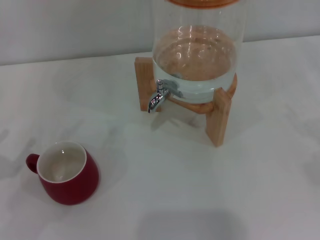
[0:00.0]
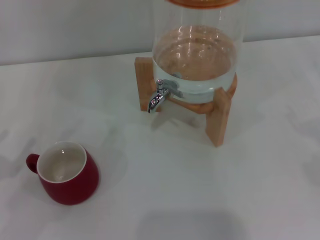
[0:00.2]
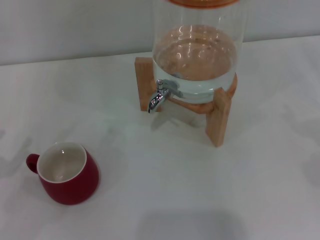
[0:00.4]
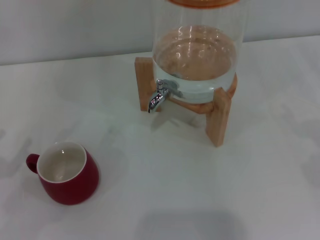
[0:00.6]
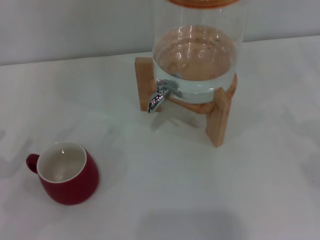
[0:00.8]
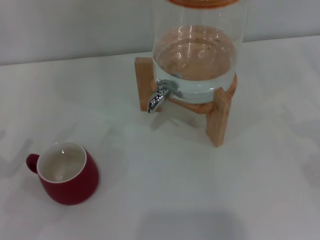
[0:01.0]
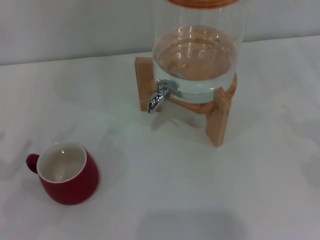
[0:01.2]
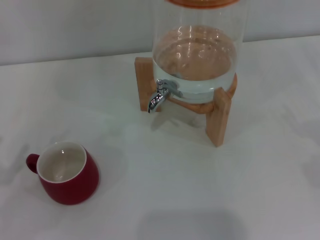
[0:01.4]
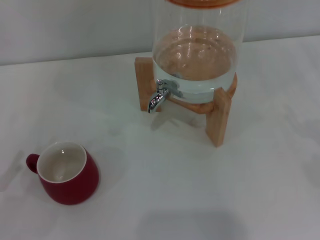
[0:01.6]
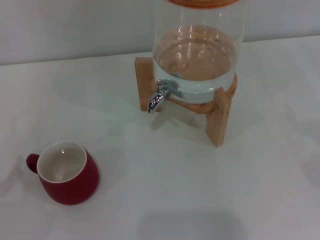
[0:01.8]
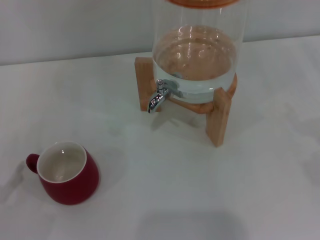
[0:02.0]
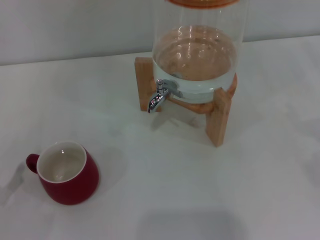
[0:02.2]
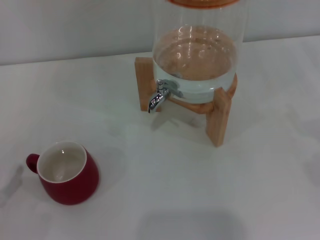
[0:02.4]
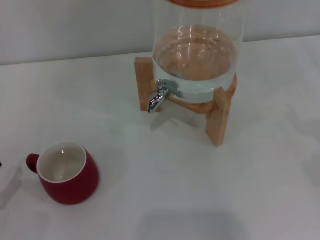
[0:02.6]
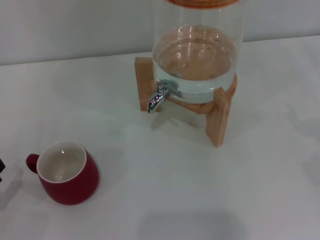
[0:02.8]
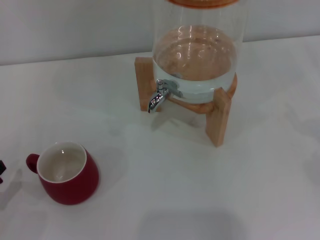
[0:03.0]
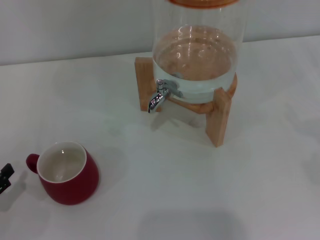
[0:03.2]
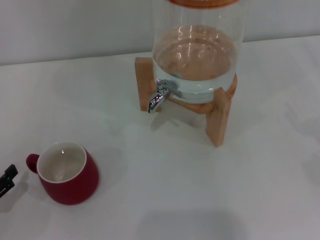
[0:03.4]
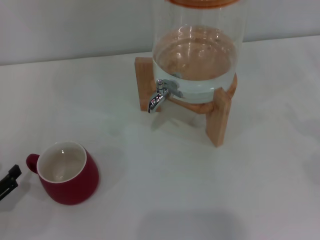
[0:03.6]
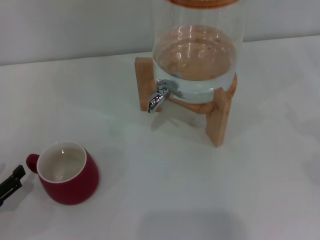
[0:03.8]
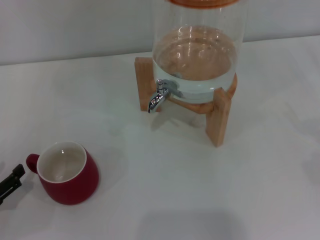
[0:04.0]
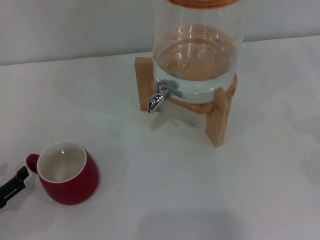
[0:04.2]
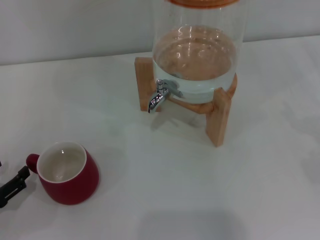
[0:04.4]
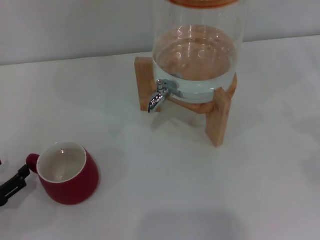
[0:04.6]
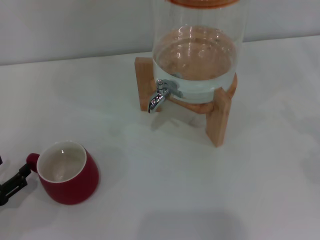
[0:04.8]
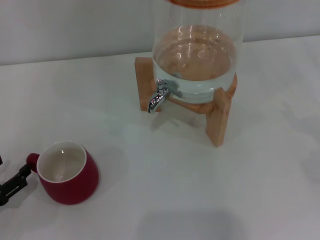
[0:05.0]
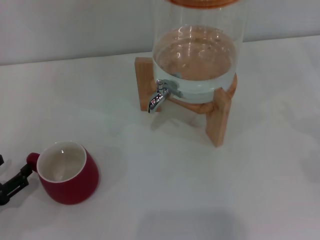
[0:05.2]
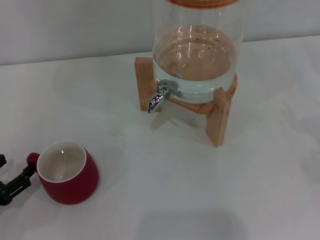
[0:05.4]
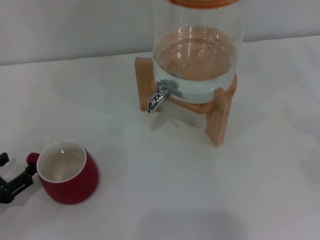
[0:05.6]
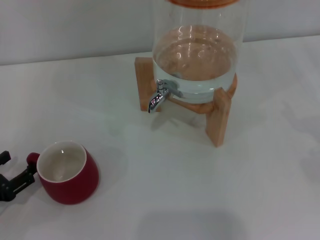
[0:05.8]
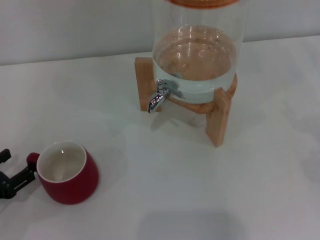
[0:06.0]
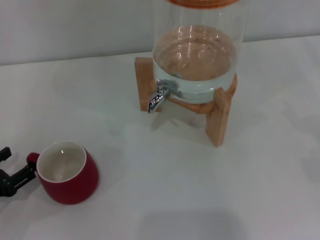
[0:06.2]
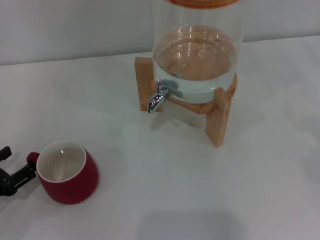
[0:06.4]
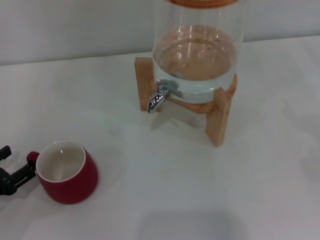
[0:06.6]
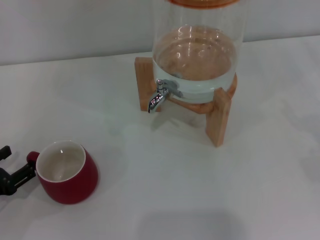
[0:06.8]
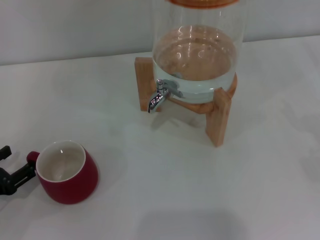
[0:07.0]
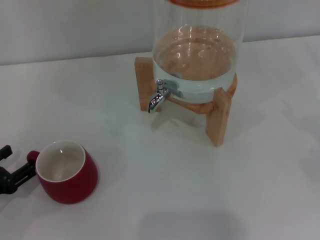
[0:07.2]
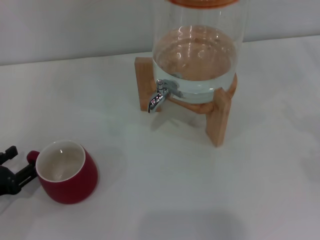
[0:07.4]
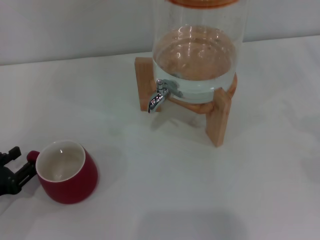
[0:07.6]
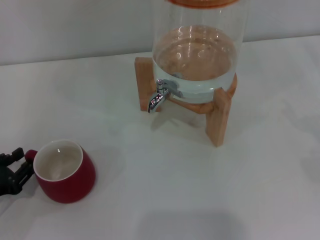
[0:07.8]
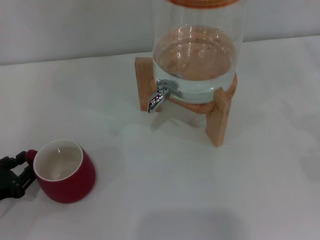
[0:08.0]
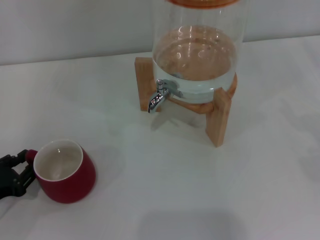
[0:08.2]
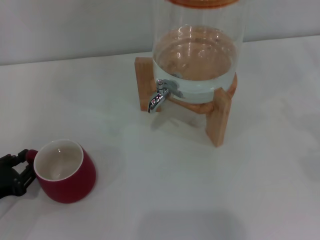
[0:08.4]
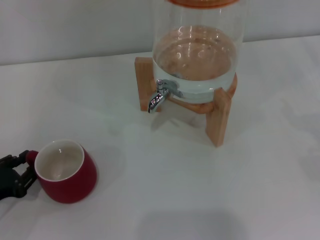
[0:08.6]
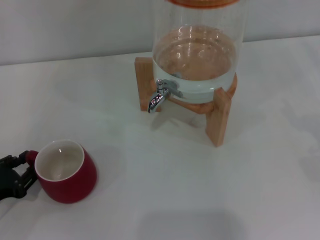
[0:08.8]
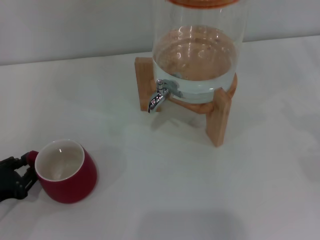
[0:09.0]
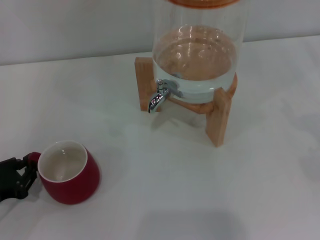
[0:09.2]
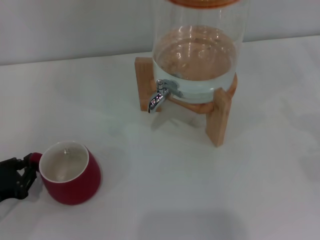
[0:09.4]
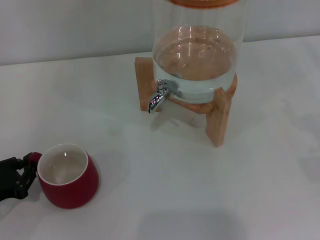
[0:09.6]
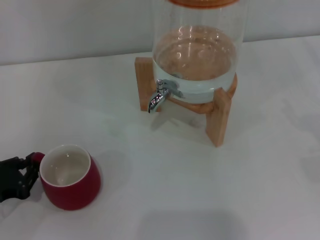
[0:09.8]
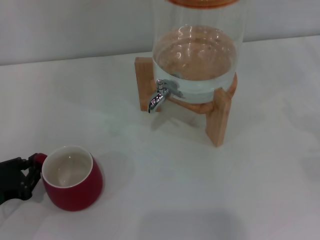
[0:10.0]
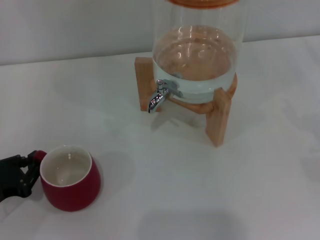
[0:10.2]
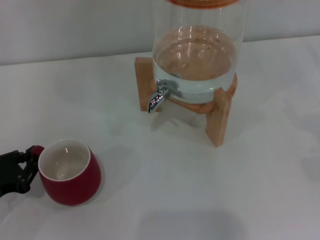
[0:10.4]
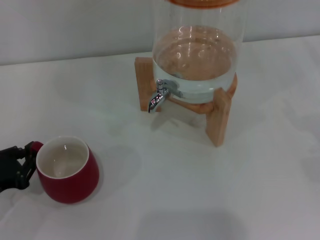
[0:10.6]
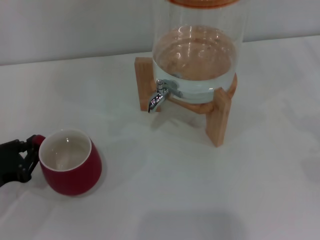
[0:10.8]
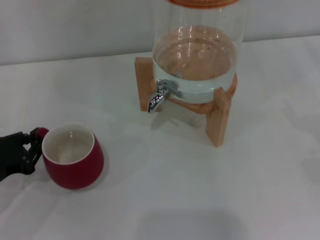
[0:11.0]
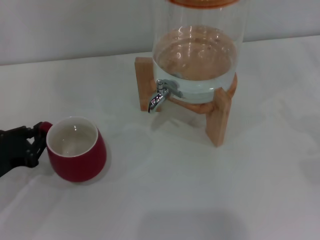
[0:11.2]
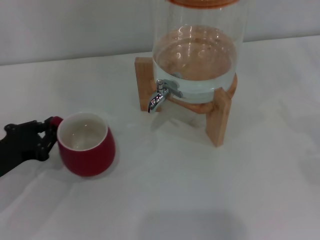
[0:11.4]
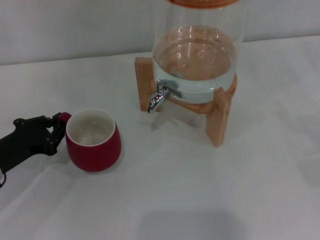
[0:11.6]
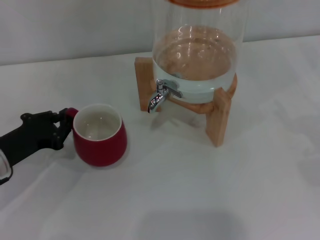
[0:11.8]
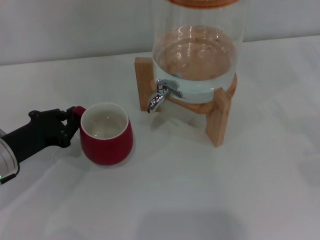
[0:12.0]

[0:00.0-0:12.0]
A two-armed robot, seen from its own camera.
Task of the whole recording: the left gripper pick up the red cup and place it horizontally under the faucet, the right gripper turn on the faucet to fill the cup, and then turn off the faucet.
0:03.0 to 0:04.4: The grippers stay close to where they were, moving slightly.
0:06.0 to 0:07.6: Neither gripper changes place.
0:07.6 to 0:09.0: The left gripper closes.
0:09.0 to 0:10.4: Both grippers stay put.
0:10.4 to 0:12.0: The left gripper travels forward and to the right by about 10 cm.

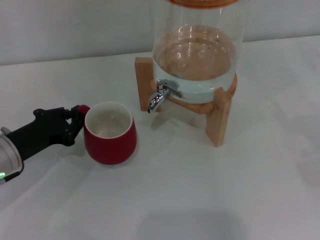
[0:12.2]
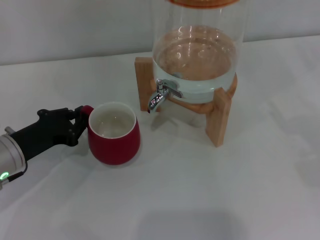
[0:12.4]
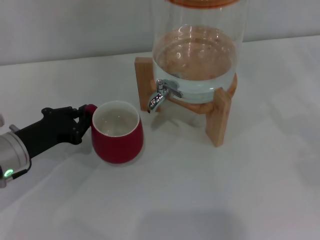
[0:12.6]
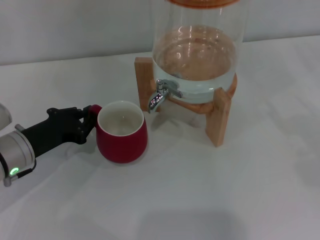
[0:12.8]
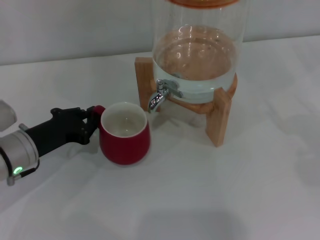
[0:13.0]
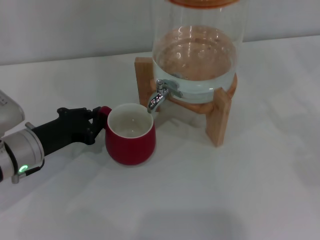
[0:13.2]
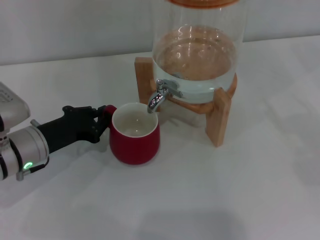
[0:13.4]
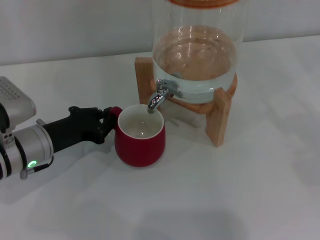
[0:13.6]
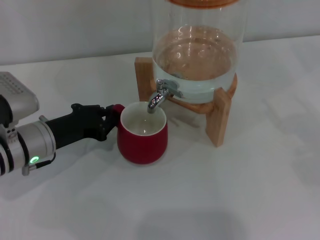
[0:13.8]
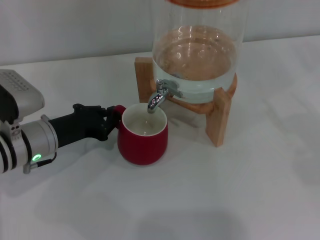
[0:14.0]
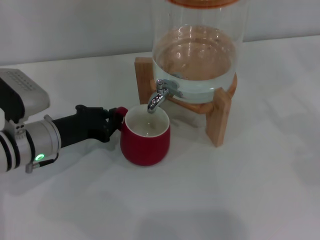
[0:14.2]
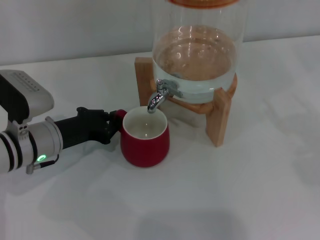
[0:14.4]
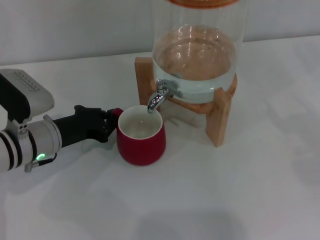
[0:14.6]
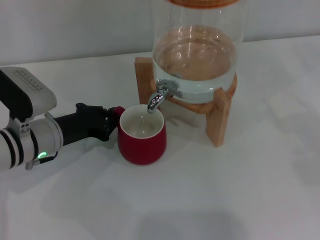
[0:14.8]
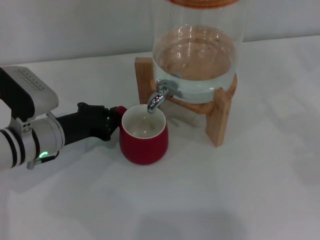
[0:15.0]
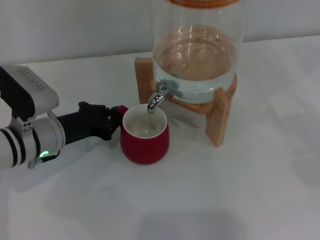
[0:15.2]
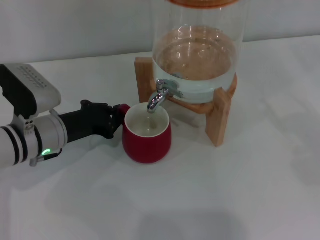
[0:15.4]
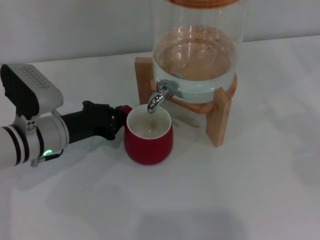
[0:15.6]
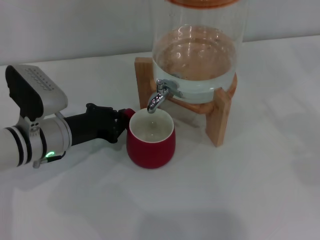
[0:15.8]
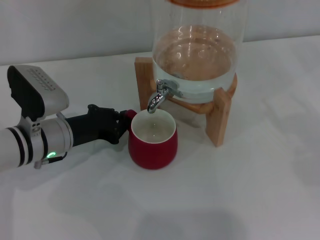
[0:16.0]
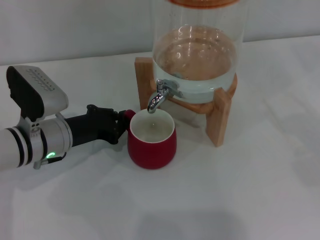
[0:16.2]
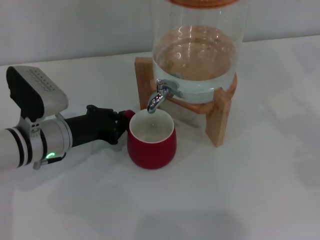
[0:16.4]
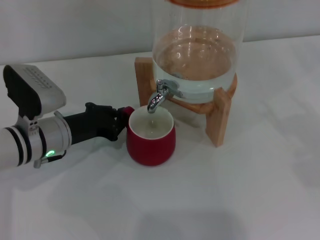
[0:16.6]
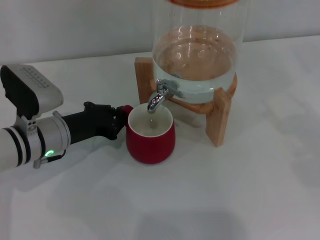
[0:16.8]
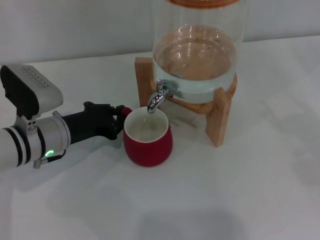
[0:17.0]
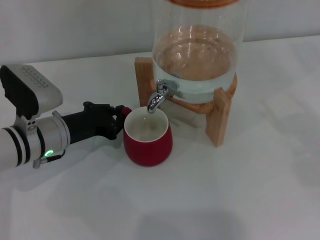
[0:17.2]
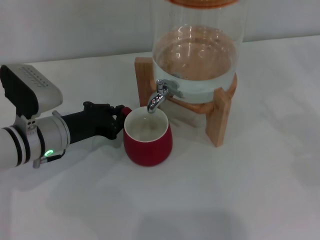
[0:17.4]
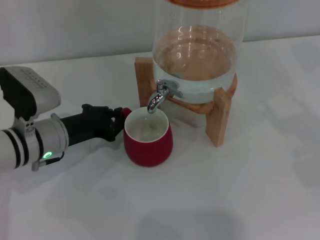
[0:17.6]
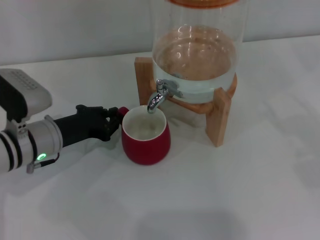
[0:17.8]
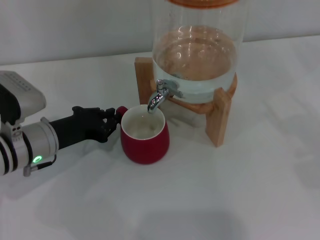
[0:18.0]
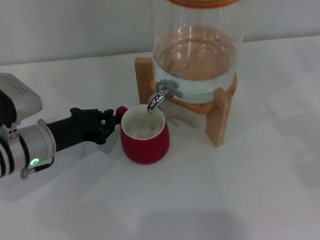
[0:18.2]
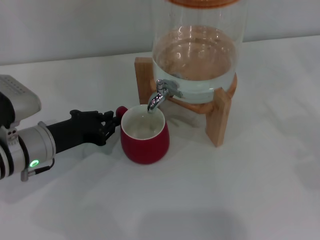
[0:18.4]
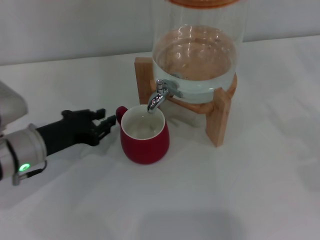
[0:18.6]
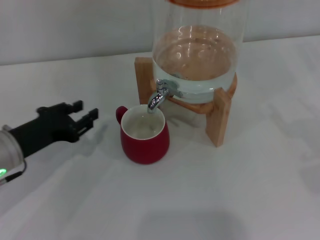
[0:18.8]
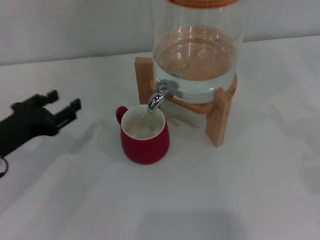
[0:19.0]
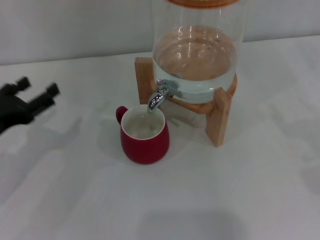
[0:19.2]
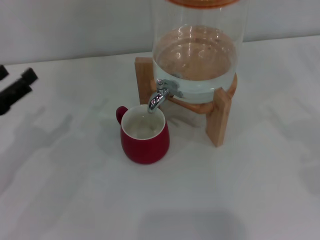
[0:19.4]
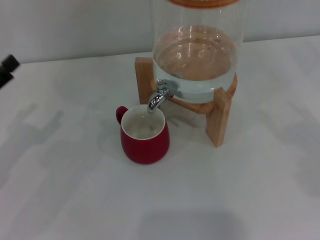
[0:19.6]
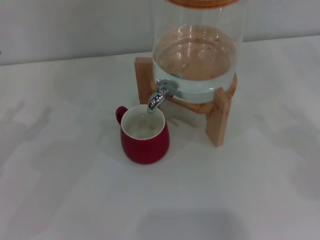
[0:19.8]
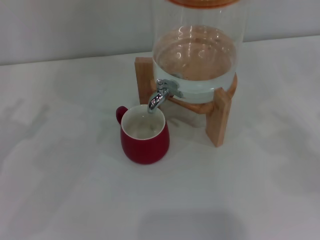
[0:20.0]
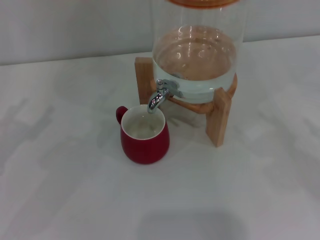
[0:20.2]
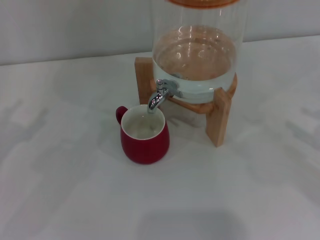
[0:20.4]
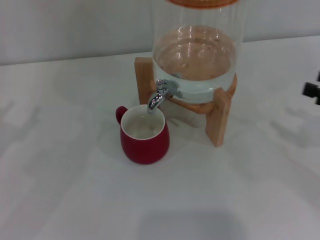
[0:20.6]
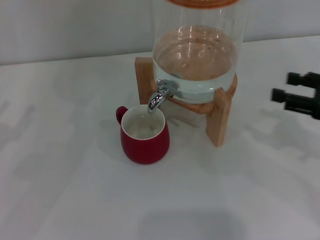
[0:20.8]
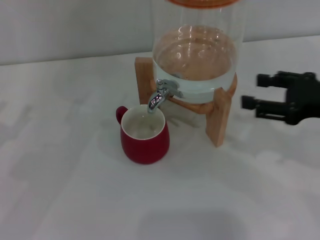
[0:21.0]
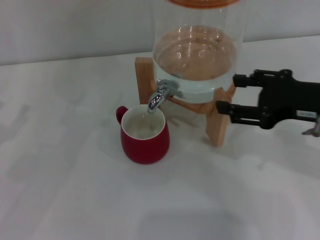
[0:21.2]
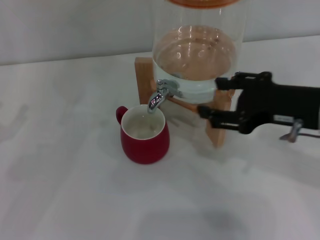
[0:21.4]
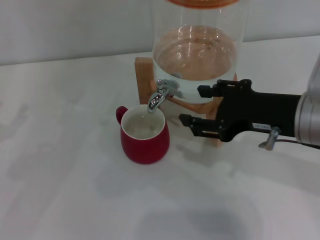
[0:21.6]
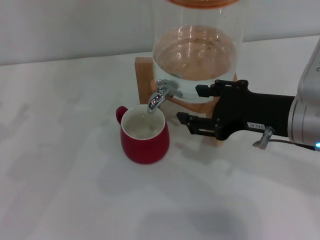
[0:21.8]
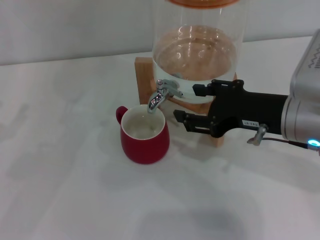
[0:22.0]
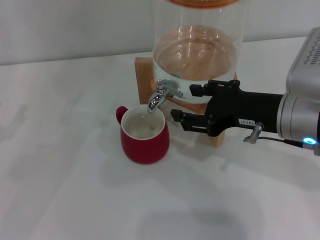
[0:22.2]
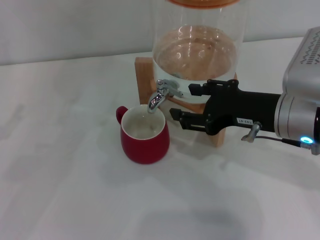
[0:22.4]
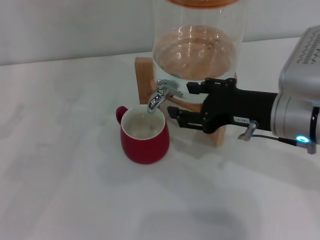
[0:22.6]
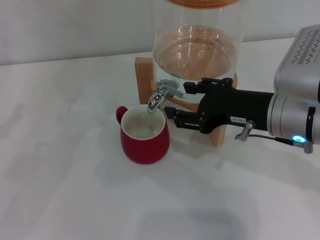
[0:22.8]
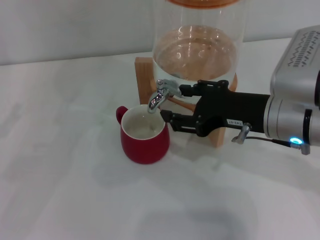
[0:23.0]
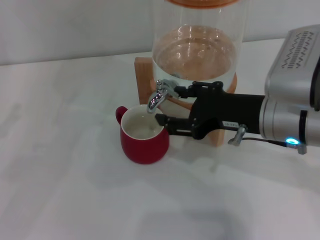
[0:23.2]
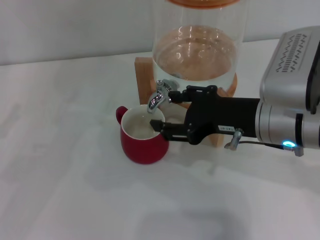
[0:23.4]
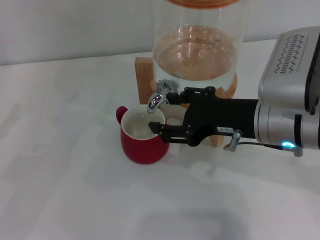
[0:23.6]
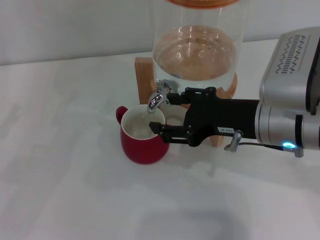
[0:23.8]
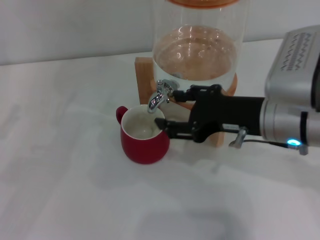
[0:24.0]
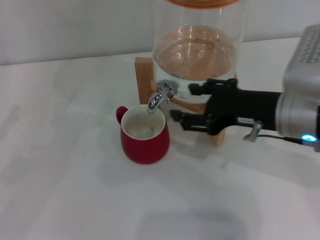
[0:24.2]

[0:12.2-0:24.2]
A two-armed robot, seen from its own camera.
Task of the whole recording: the left gripper pick up the red cup and place it horizontally under the faucet, the right gripper turn on the faucet to fill the cup, and then turn off the faucet.
Step, 0:12.2 to 0:18.6: Move the cup beneath the water dispenser nozzle with the left gripper.
Step, 0:18.8 to 0:23.8: Open the dispenser valve and fill the cup with water with the right gripper.
0:12.2 to 0:13.8: The left gripper shifts by some 5 cm.
0:13.8 to 0:15.2: There are only small adjustments of the grippers.
0:15.2 to 0:16.6: Both grippers stay put.
0:16.6 to 0:18.2: The grippers stay close to where they were, moving slightly.
0:18.2 to 0:19.8: The left gripper shifts about 15 cm to the left, upward and backward, and opens up.
0:19.8 to 0:21.2: The right gripper moves to the left, approximately 20 cm.
0:21.2 to 0:22.6: The right gripper heads to the left, covering roughly 5 cm.
0:22.6 to 0:24.2: There are only small adjustments of the grippers.
